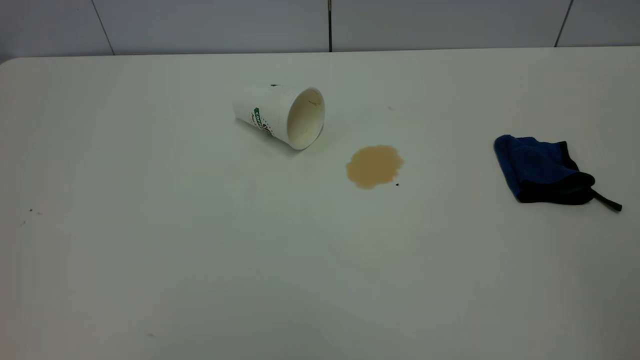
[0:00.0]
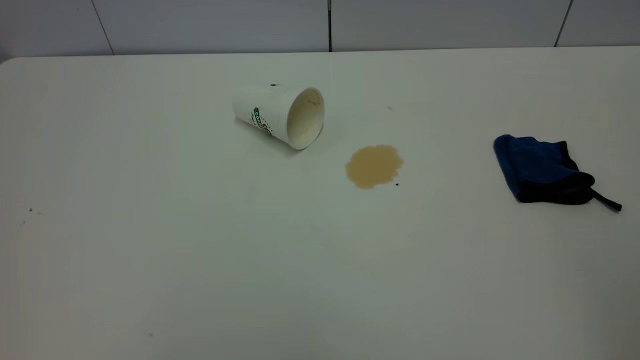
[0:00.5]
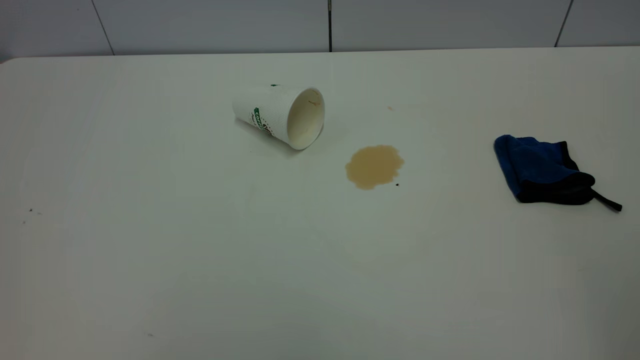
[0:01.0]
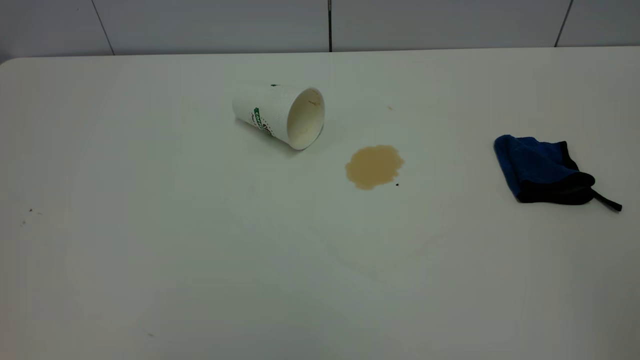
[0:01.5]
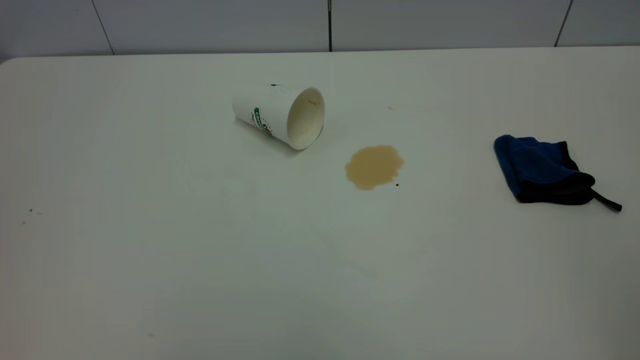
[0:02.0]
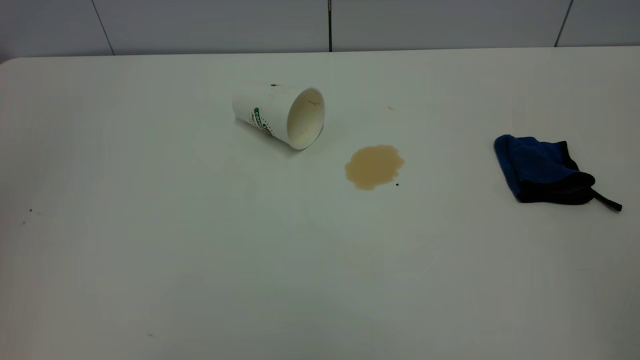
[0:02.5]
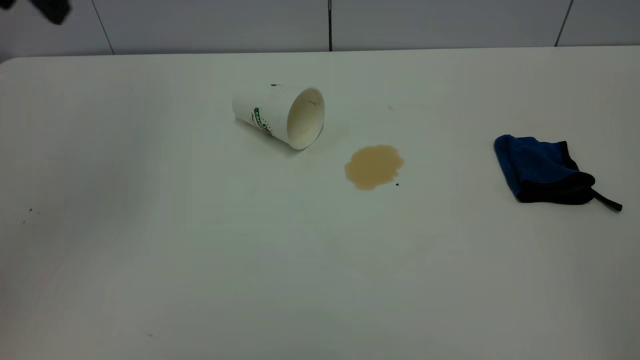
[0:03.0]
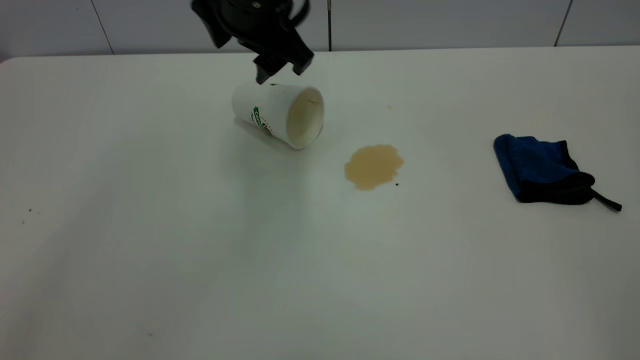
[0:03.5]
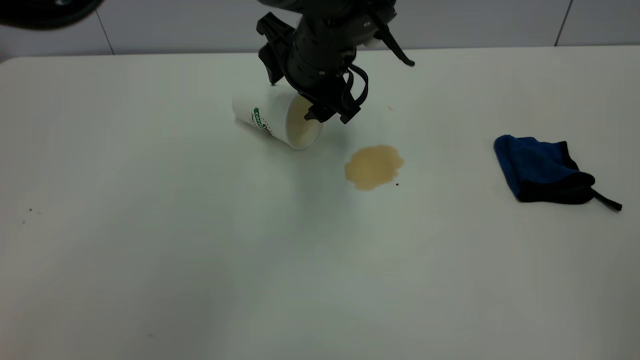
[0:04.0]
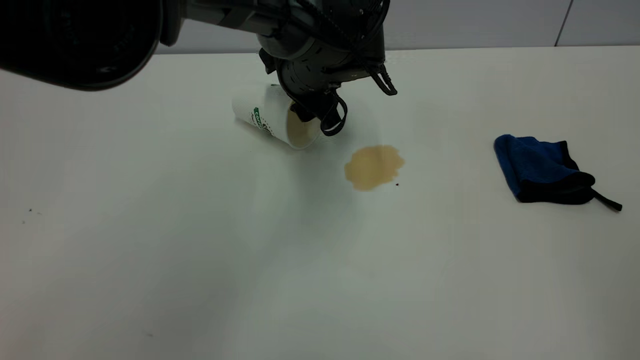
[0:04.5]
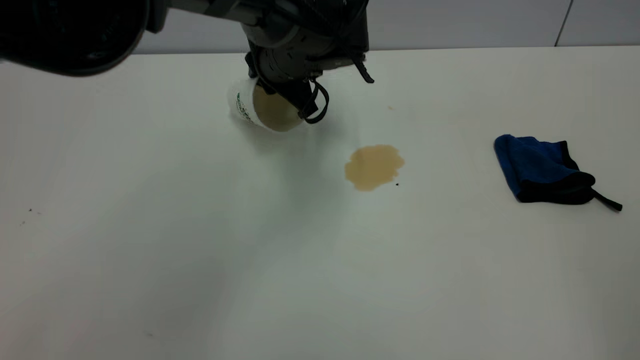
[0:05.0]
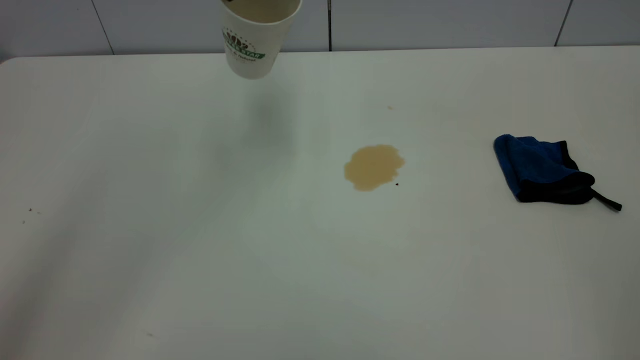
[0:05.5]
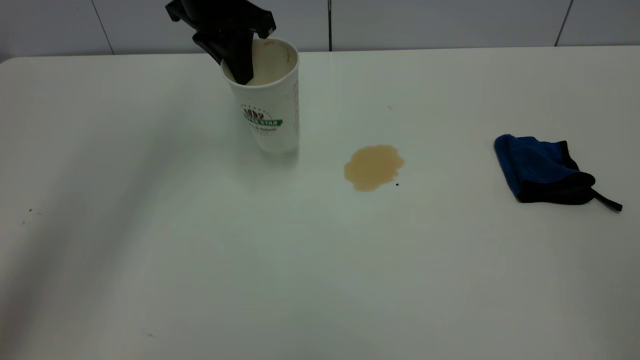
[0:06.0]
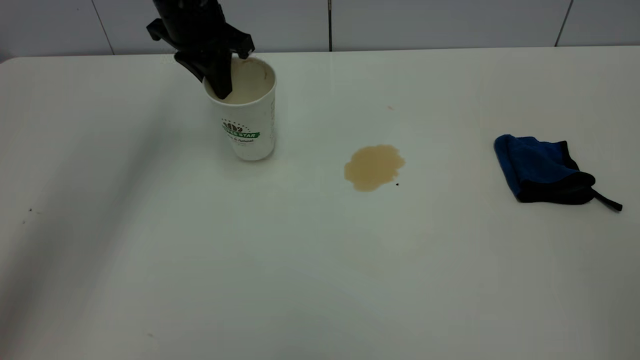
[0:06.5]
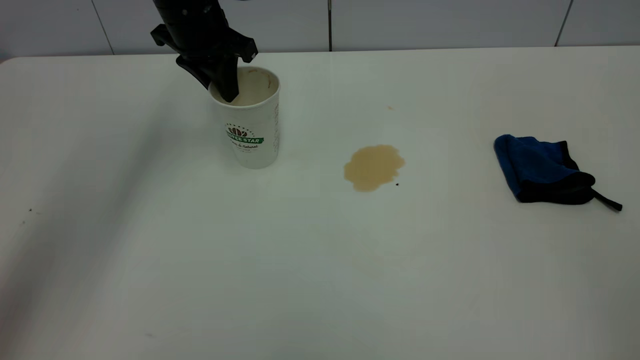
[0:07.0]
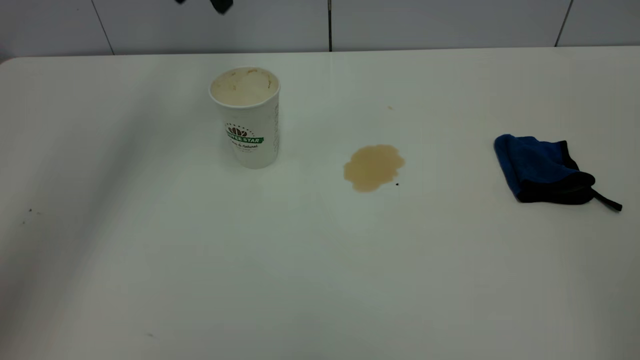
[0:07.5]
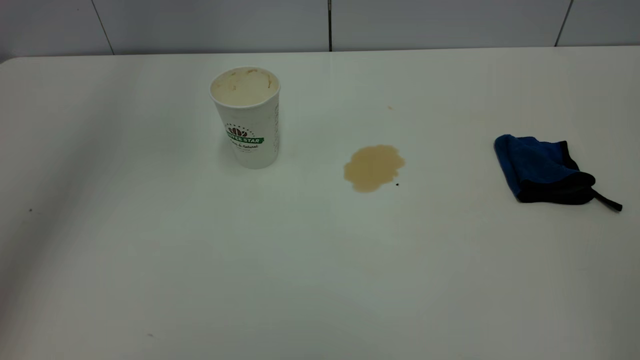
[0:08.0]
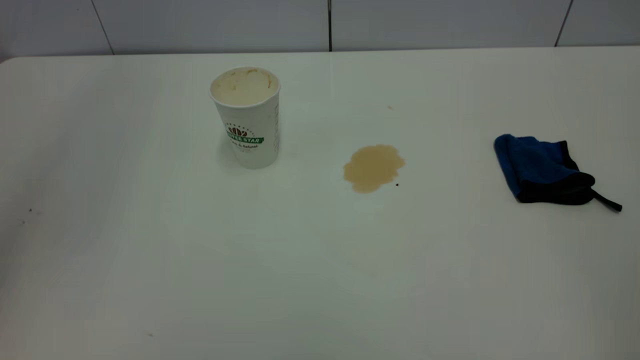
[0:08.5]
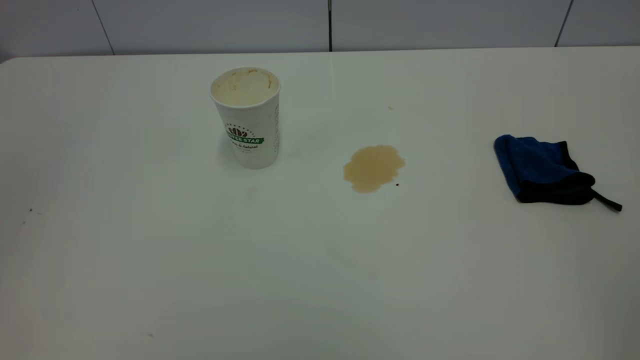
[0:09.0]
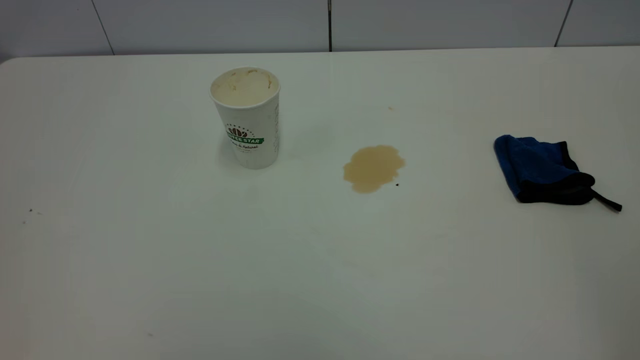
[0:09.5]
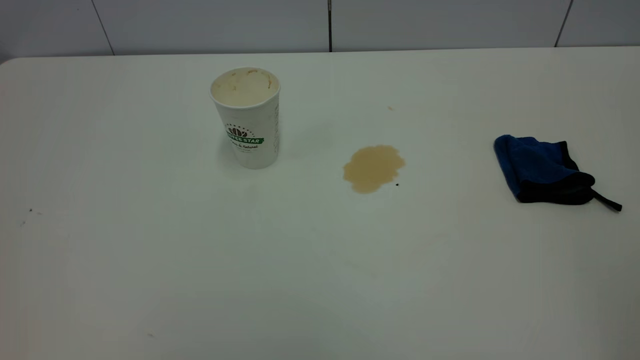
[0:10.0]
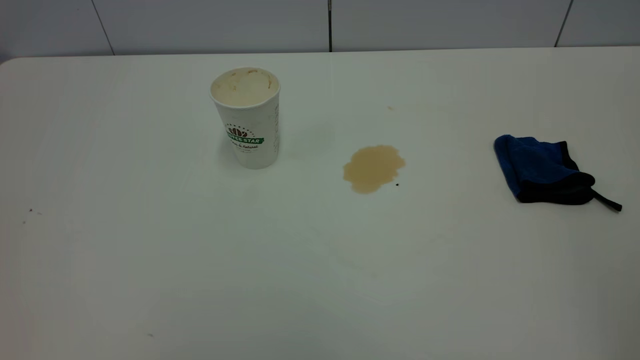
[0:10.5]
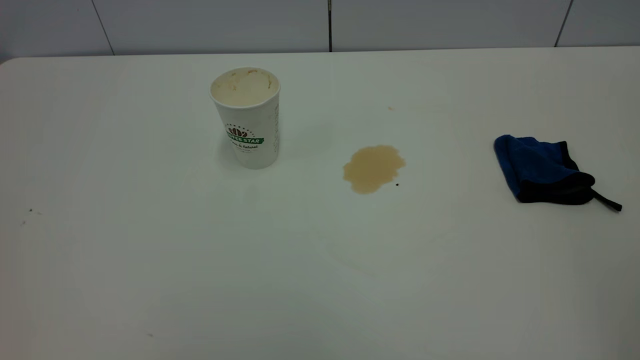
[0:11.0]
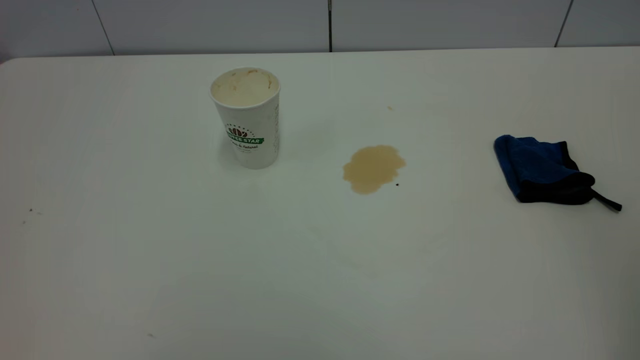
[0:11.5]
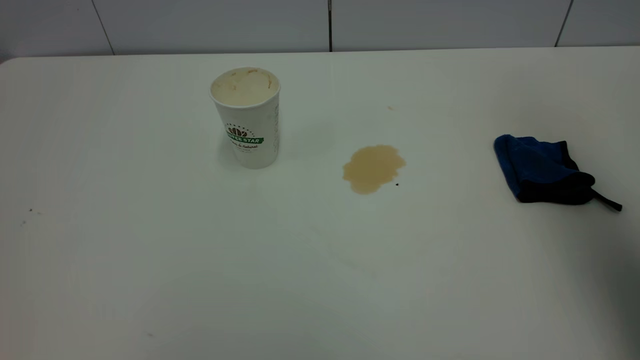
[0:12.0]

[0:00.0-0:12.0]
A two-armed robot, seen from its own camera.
Task of the whole recording: the left gripper pick up the fallen cup and place it upright, the right gripper grasp the blue rag and wipe the tea stain on the table, the right gripper put the blue rag back in its original position.
Step, 0:00.0 to 0:07.0: Stand the paper cup upright.
0:02.0 to 0:04.0: The left gripper moves forward, to the right and downward, approximately 60 cm.
0:04.0 to 0:06.0: The left gripper heads to the left and forward, covering roughly 15 cm, reaches roughly 15 cm upward, then returns, and closes its fingers.
0:06.0 to 0:08.0: The left gripper moves upward, some 25 cm, and opens.
0:08.0 to 0:10.0: The left gripper travels backward by approximately 40 cm.
0:10.0 to 0:12.0: The right gripper shifts approximately 25 cm forward.

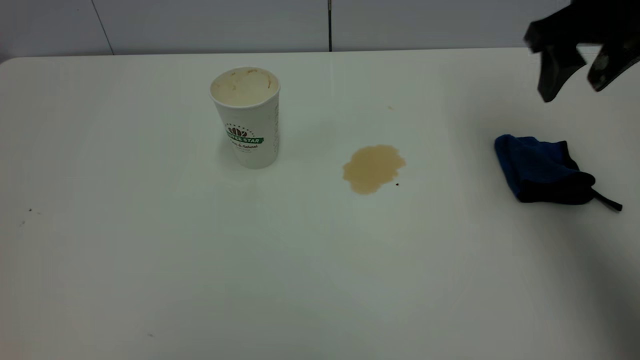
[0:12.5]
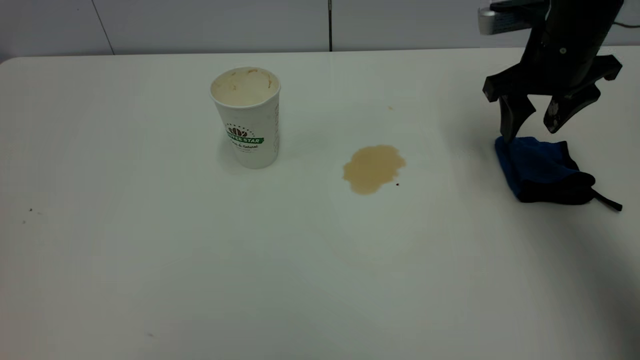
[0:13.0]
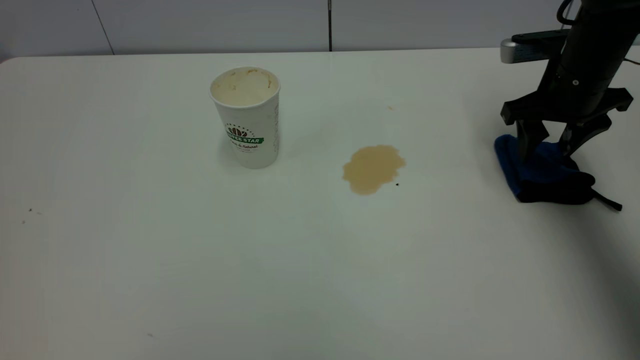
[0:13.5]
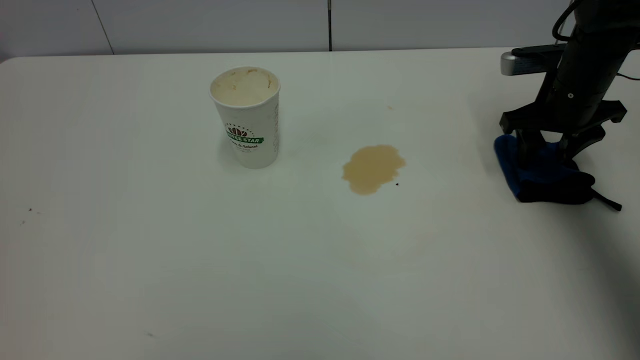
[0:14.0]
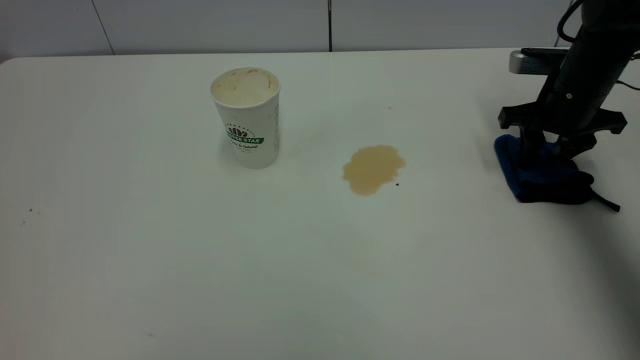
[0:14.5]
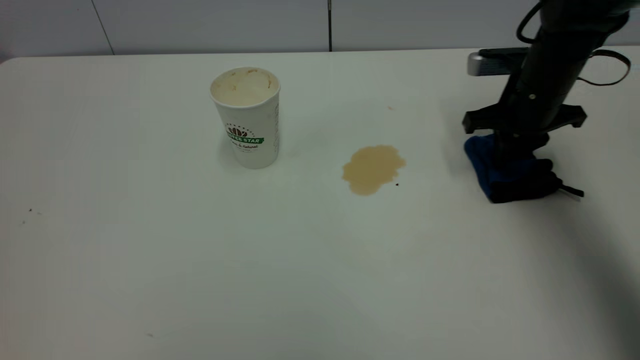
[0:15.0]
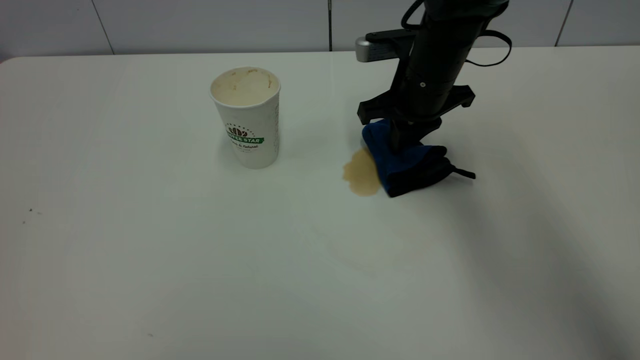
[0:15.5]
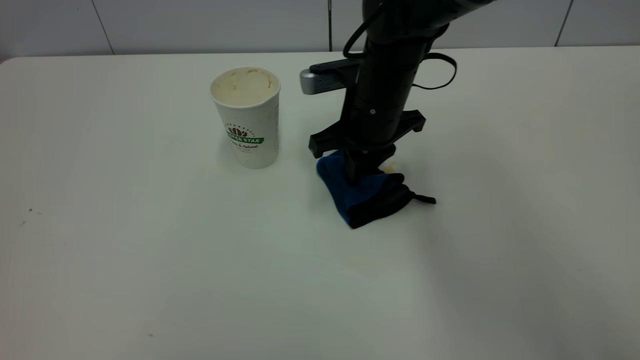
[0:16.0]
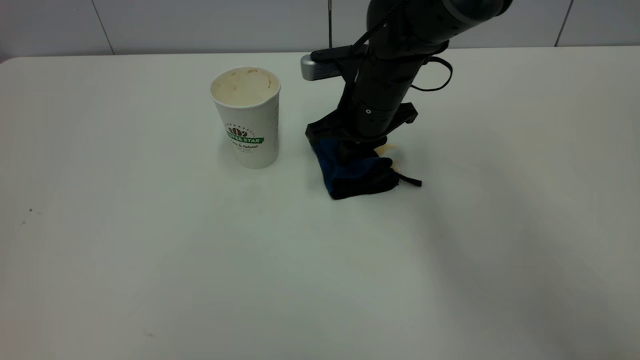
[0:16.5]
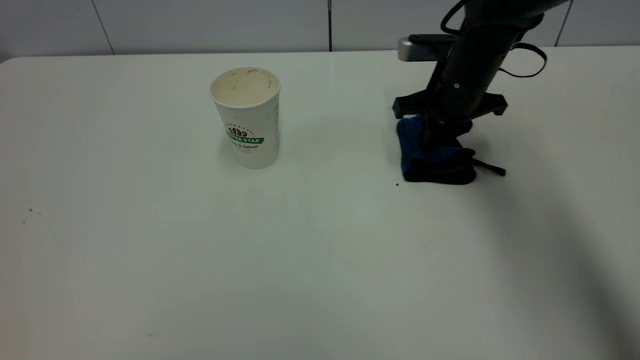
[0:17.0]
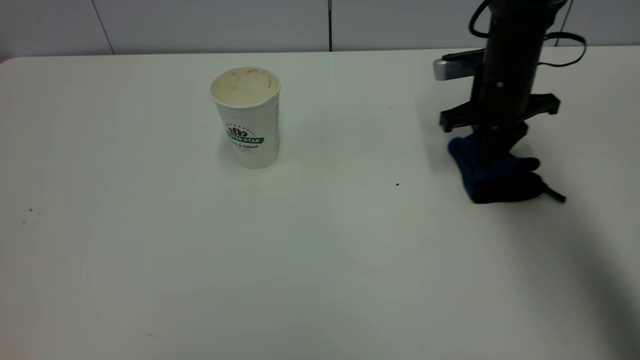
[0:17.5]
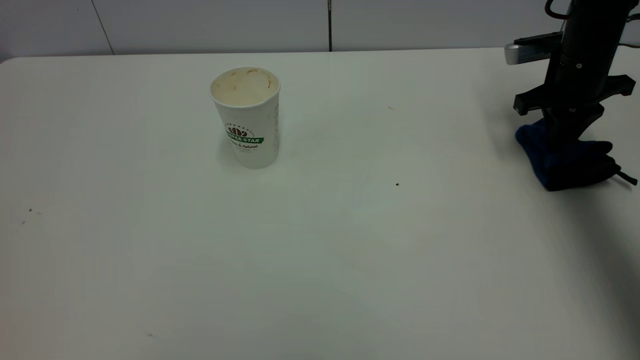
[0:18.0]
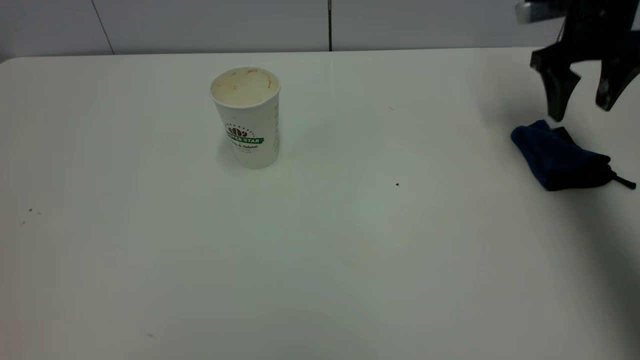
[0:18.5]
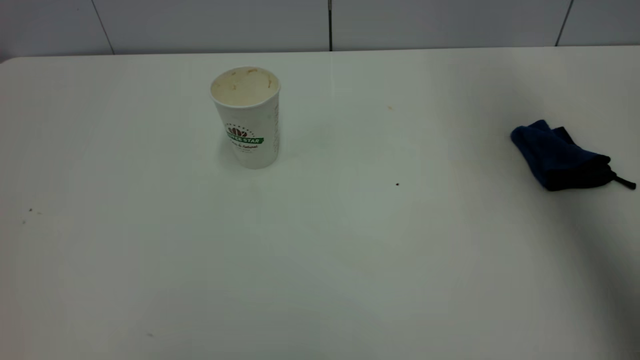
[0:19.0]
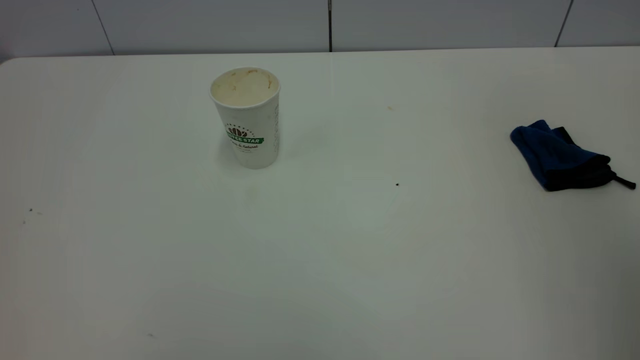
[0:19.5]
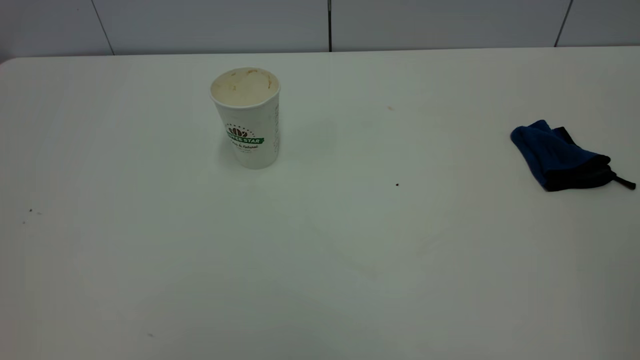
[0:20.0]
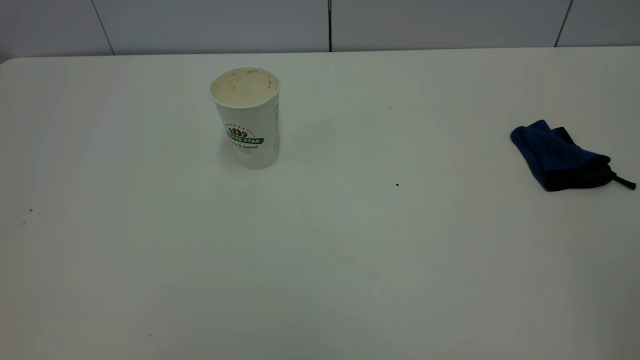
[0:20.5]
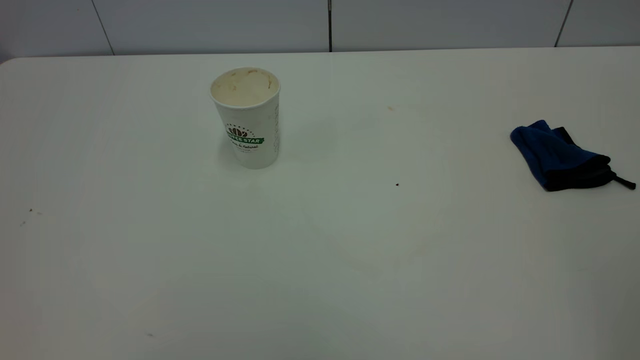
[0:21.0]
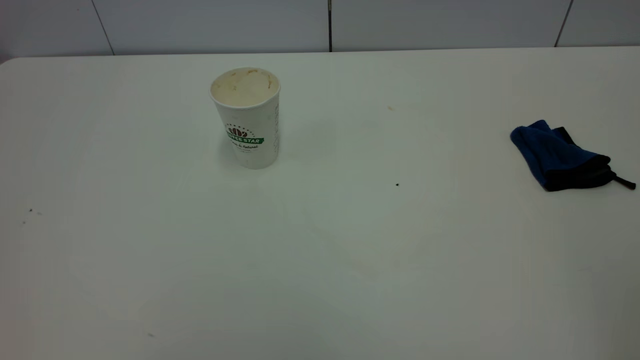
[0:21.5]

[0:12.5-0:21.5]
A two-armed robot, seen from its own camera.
Task of the whole recording: the left gripper pick up the fallen cup and place it upright, the right gripper grasp the blue rag and wipe the tea stain on the table, the right gripper put the blue rag back in its original position.
Step, 0:12.5 to 0:18.5: Wipe the stains off the table with a rag.
0:12.5 to 0:14.5: The right gripper moves downward, approximately 15 cm, and closes its fingers.
0:14.5 to 0:17.0: The right gripper heads to the left, covering approximately 10 cm, and closes up.
0:17.0 to 0:19.5: The right gripper is displaced upward and backward by approximately 50 cm, and opens up.
